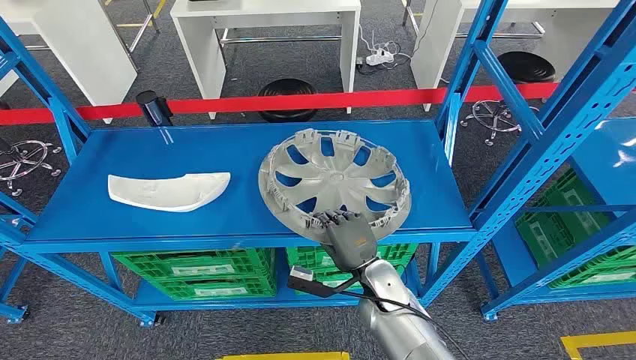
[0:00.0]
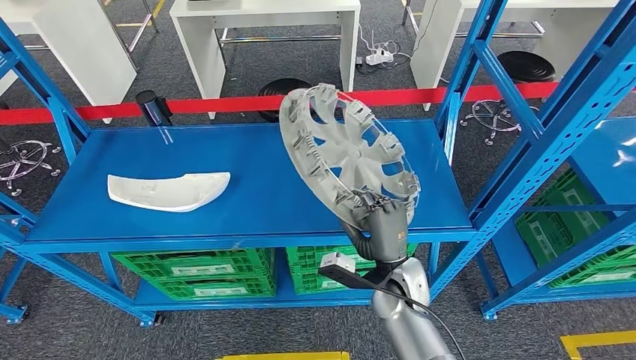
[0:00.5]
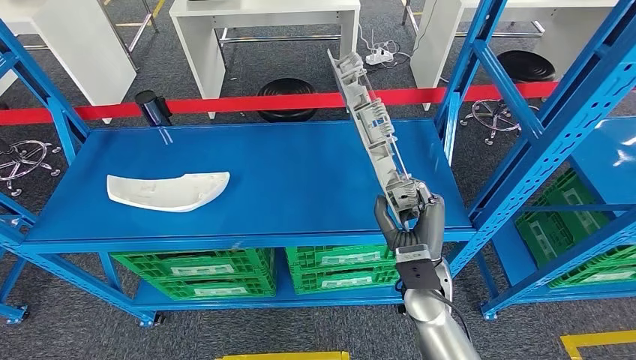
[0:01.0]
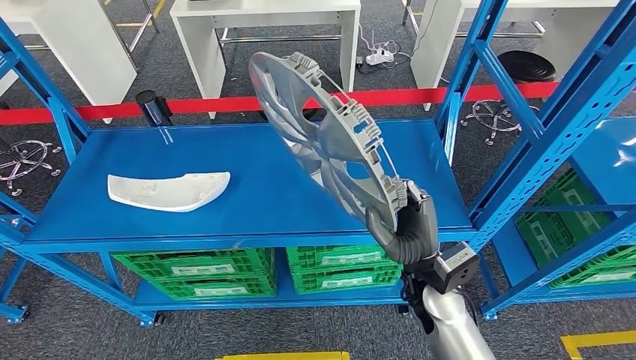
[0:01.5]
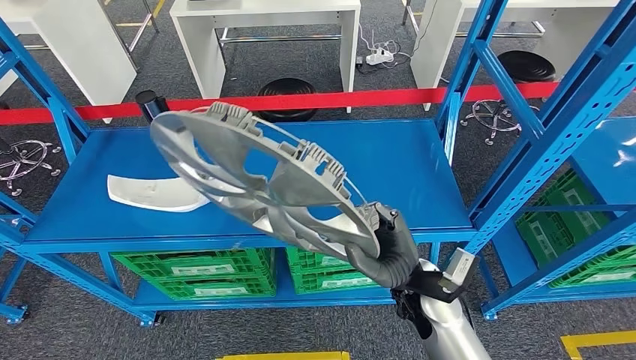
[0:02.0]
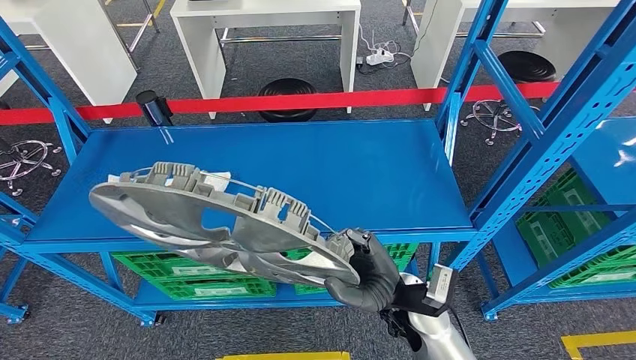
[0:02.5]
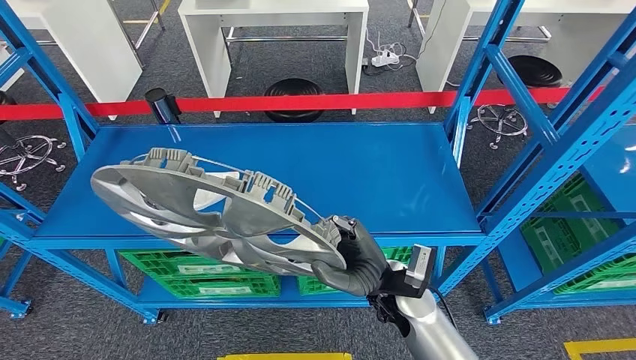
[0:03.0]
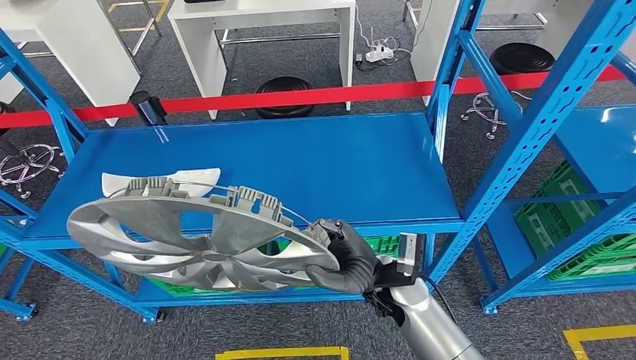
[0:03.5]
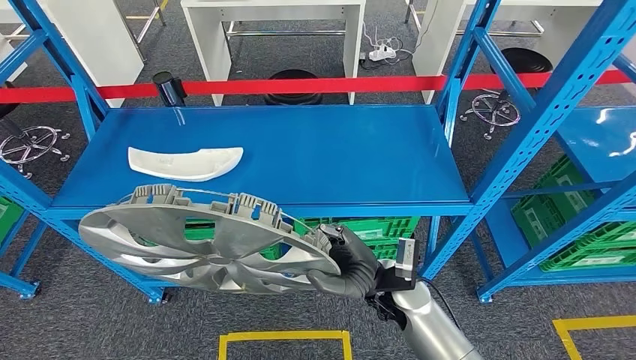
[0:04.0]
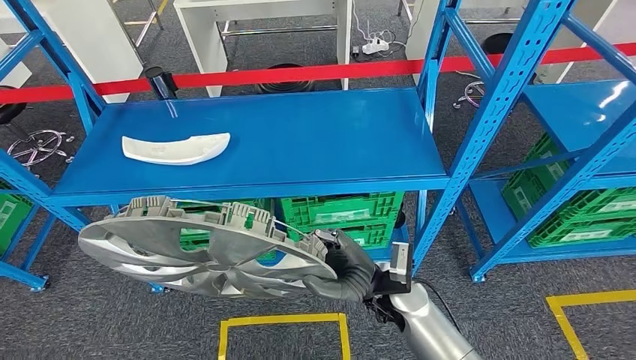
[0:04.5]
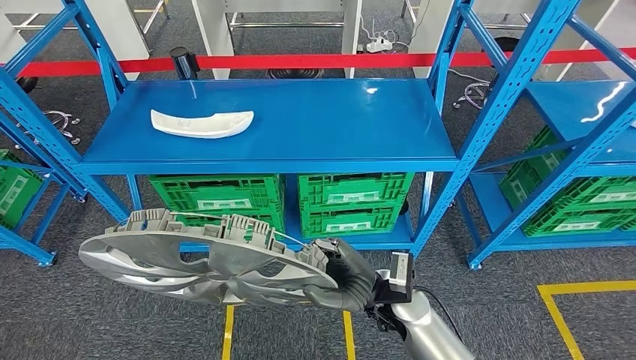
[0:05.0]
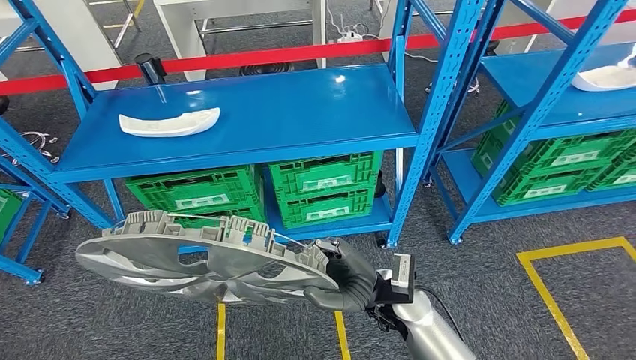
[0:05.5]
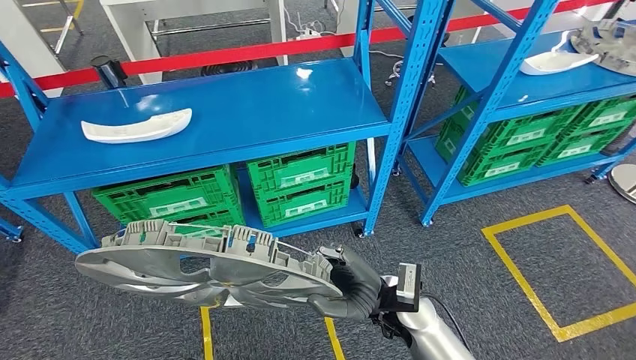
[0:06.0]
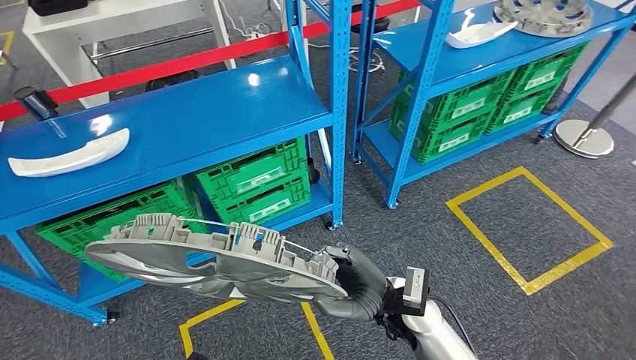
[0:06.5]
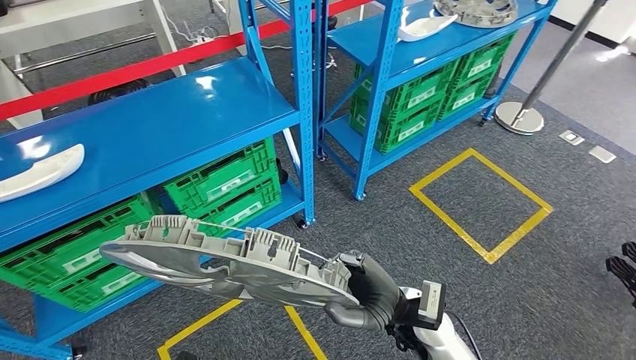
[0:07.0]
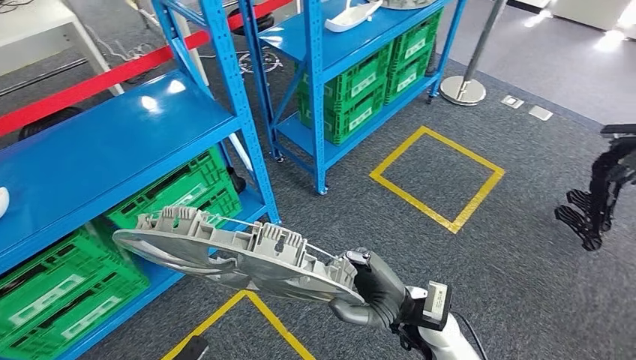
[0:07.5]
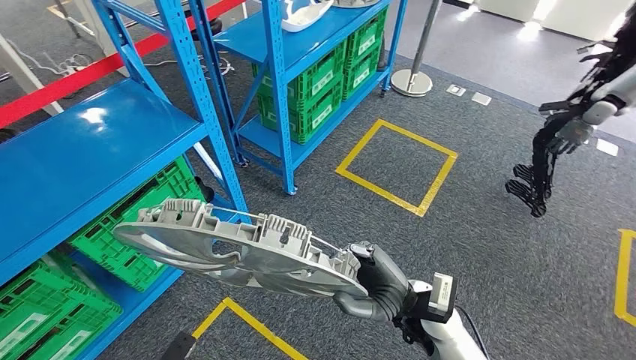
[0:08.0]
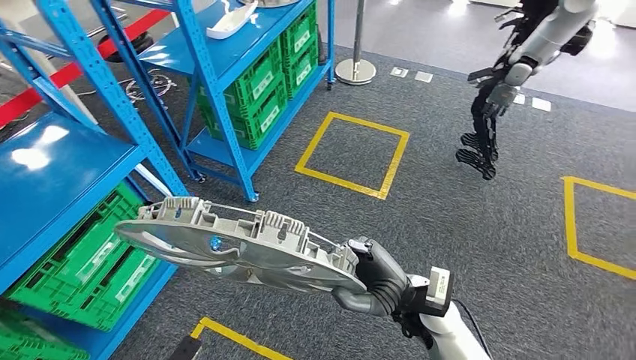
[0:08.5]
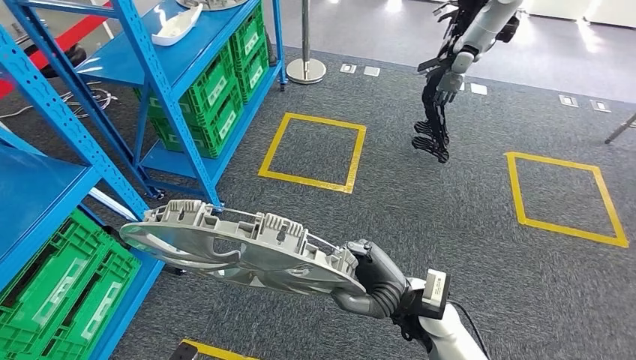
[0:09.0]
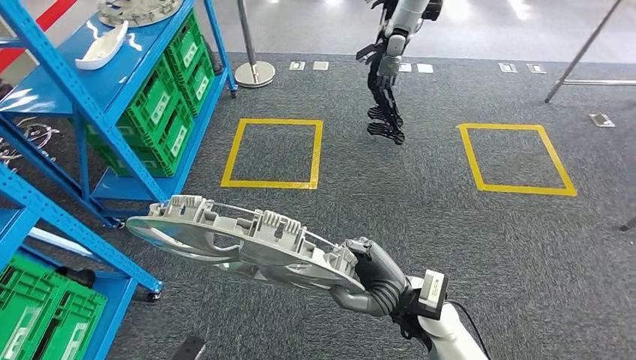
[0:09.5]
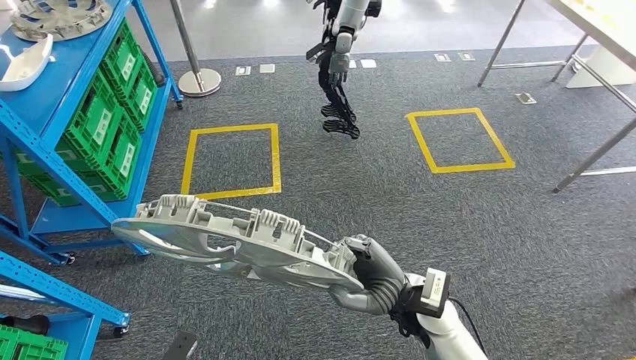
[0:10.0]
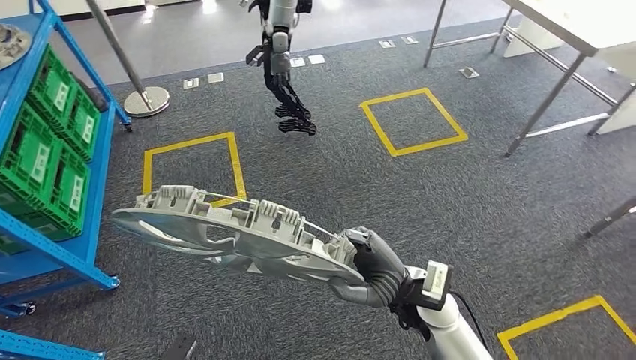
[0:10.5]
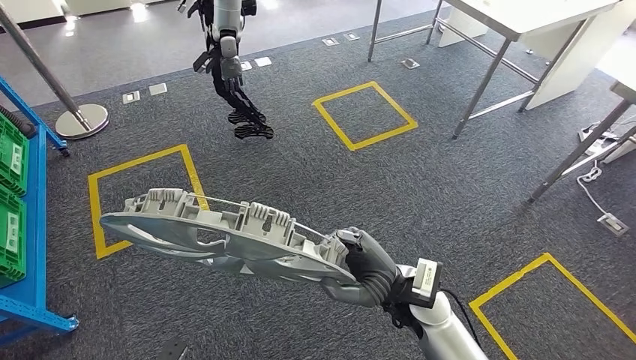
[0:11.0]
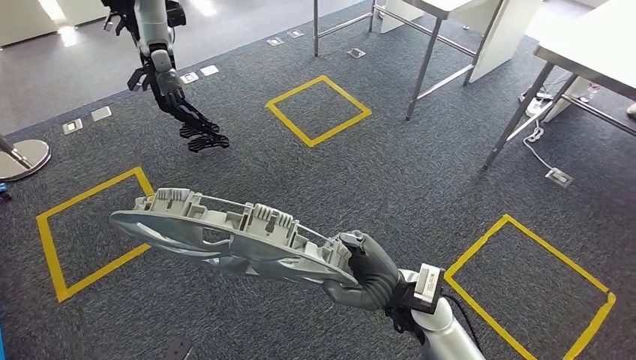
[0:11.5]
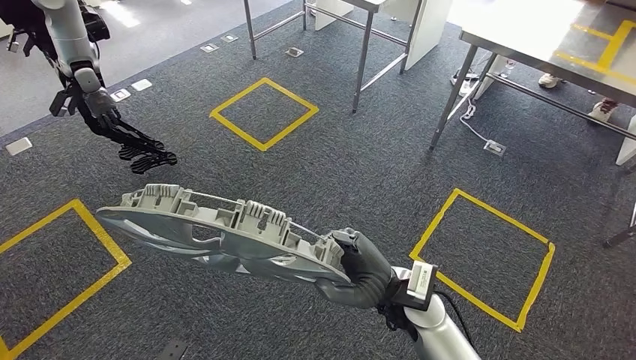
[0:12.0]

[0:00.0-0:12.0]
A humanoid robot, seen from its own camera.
Step, 0:00.0 to 0:02.5: Pick up the small parts from the shelf.

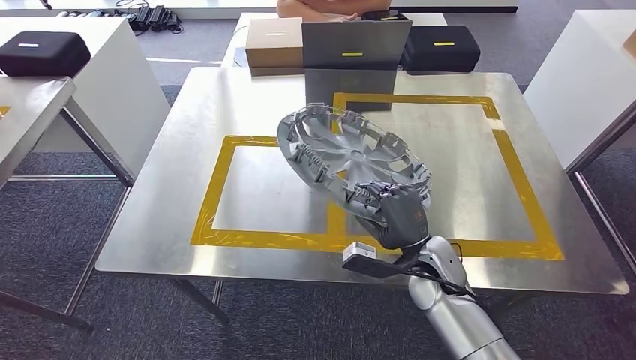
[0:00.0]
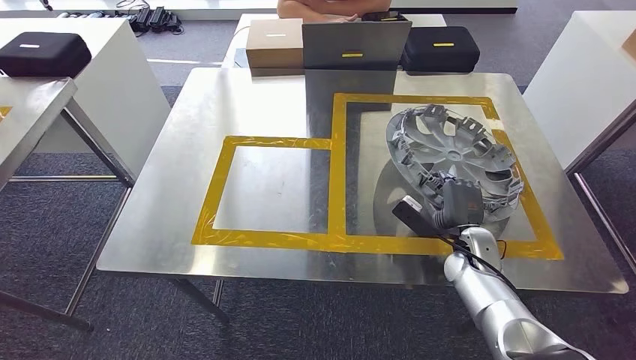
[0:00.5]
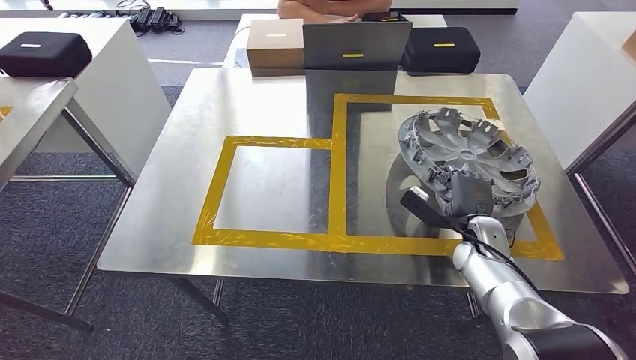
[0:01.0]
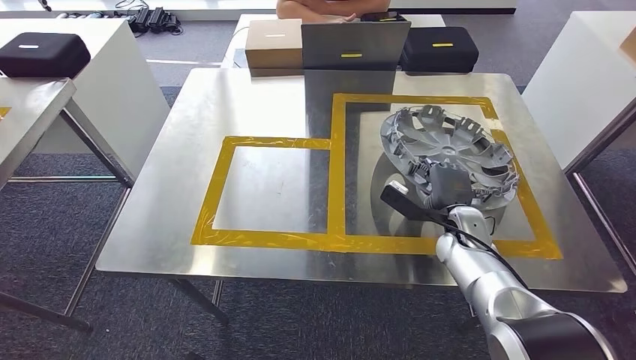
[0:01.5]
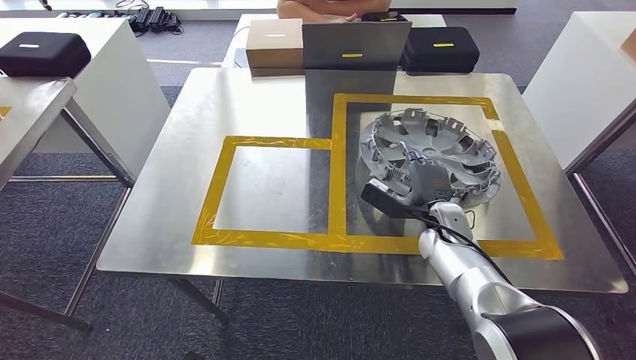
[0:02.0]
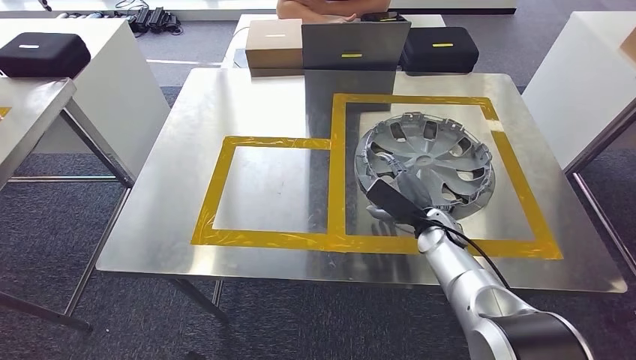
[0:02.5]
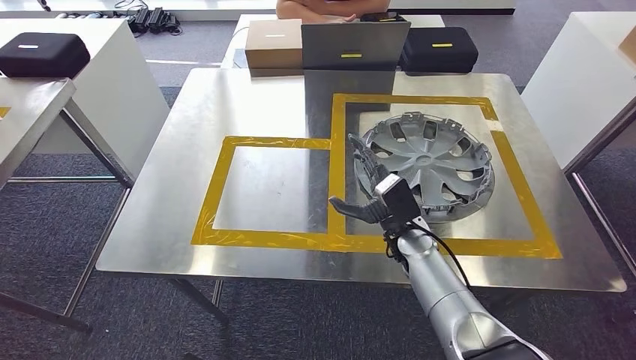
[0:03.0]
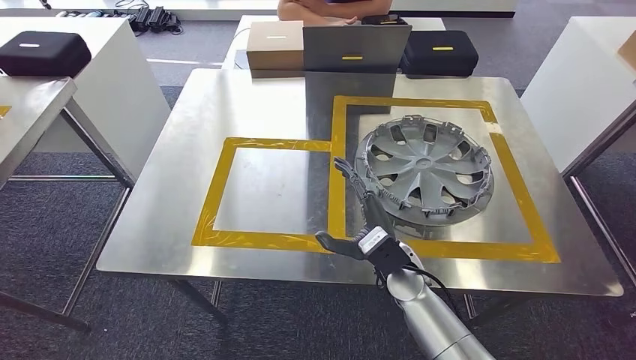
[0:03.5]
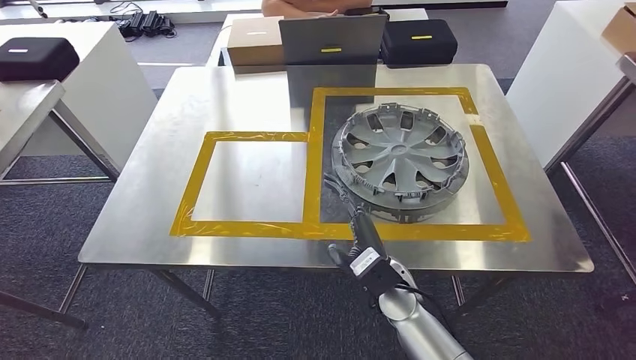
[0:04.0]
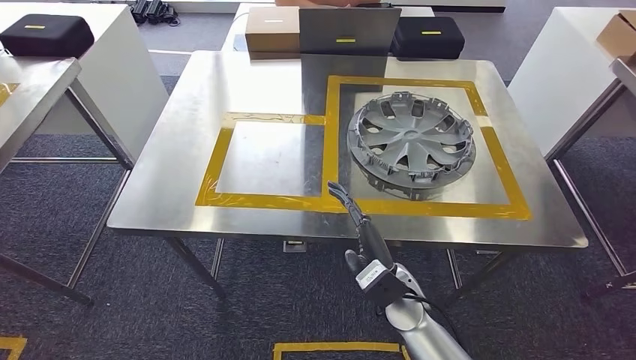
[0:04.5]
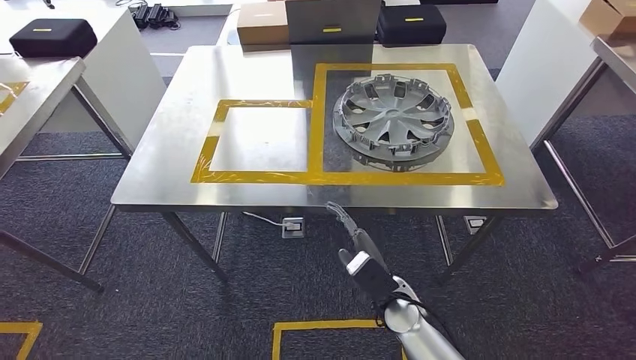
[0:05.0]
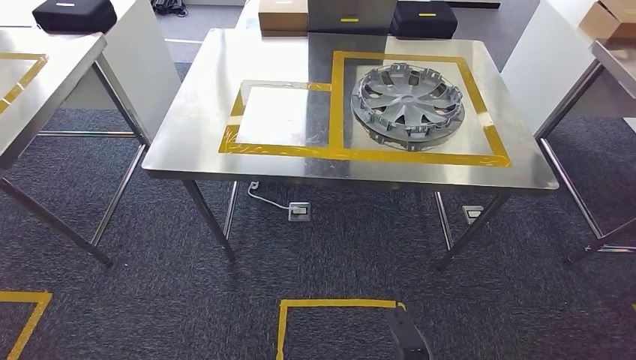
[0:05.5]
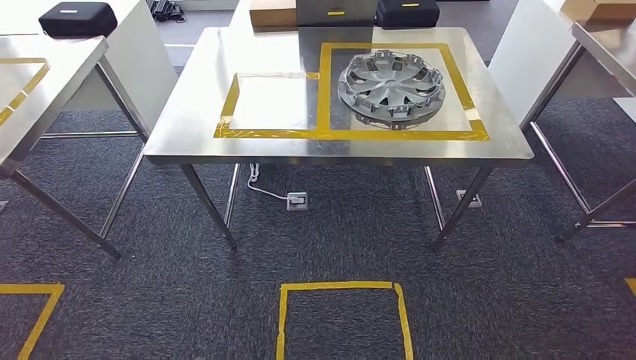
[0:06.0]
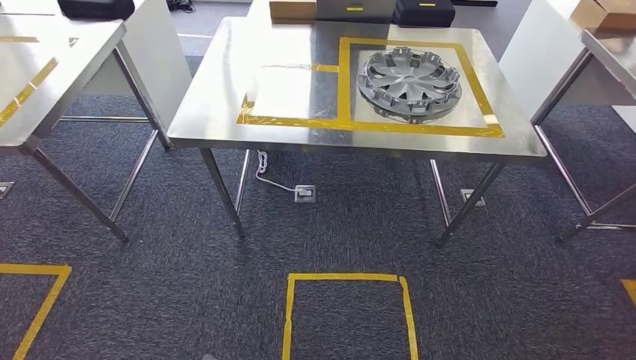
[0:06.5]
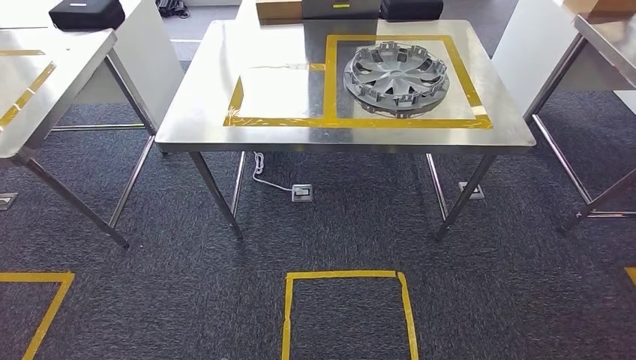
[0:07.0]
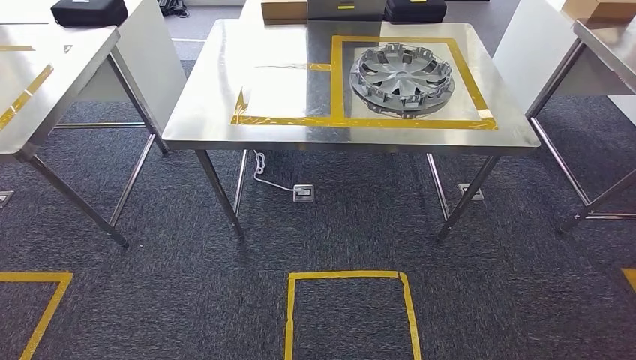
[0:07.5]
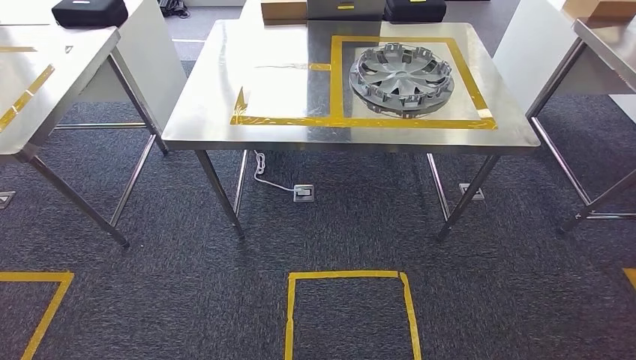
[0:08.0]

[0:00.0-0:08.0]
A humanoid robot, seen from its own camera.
Step, 0:00.0 to 0:04.0: Insert the small parts into the corresponding holes on the workbench.
Step, 0:04.5 to 0:07.5: Move to the initial position at the workbench.
0:00.0 to 0:02.0: The right hand shifts about 10 cm forward and to the right.
